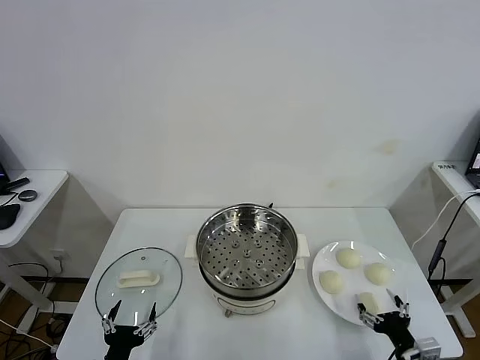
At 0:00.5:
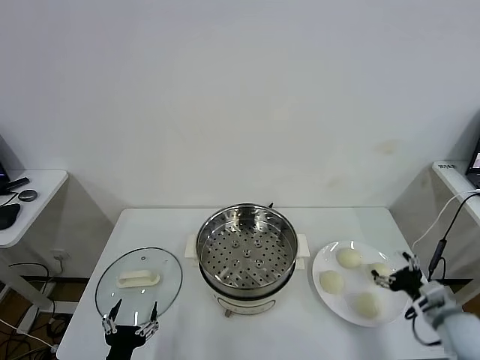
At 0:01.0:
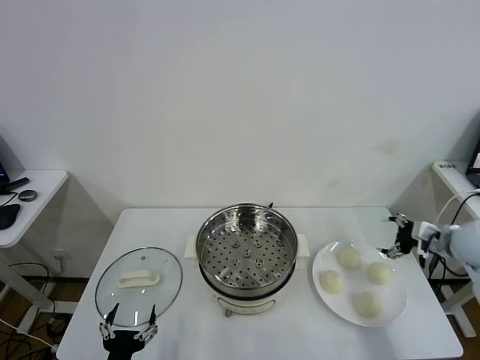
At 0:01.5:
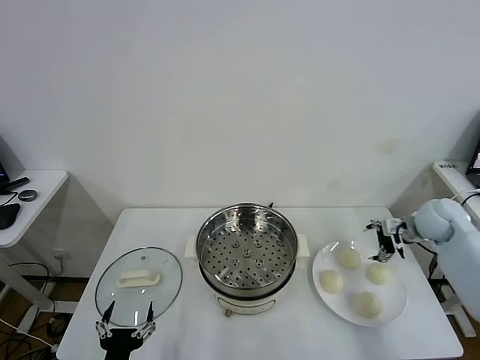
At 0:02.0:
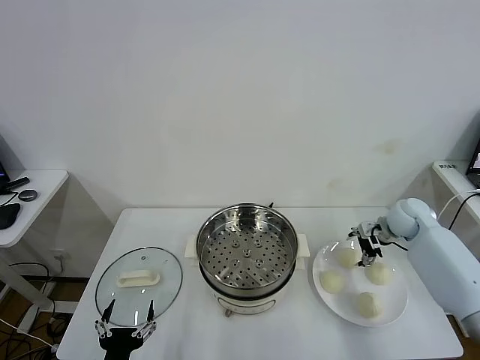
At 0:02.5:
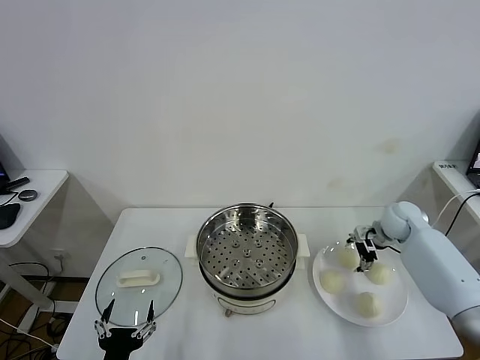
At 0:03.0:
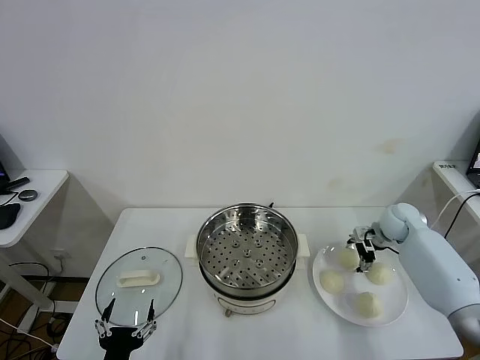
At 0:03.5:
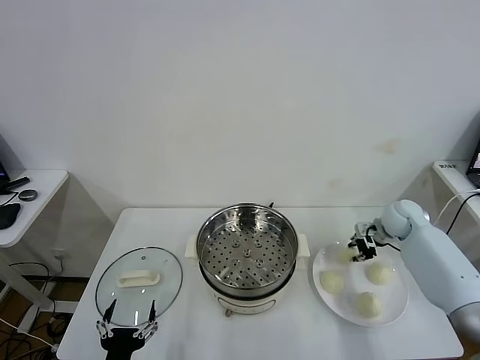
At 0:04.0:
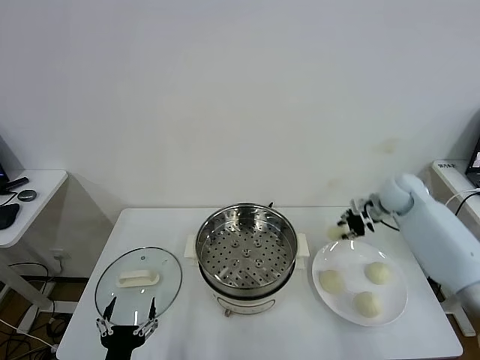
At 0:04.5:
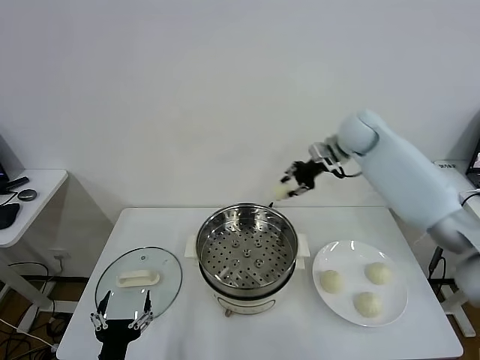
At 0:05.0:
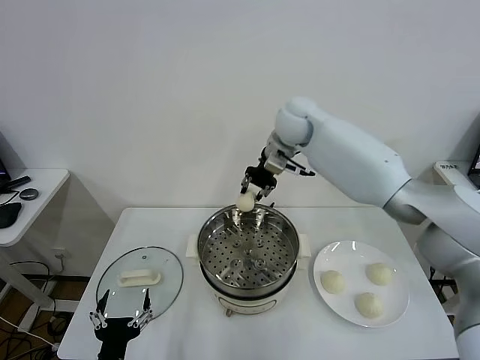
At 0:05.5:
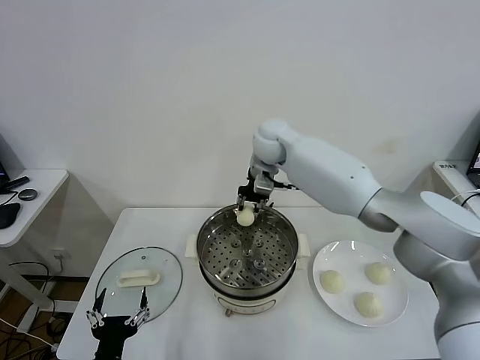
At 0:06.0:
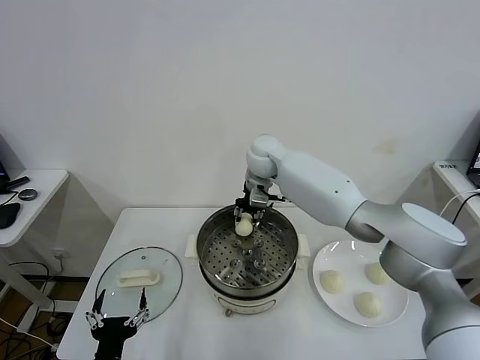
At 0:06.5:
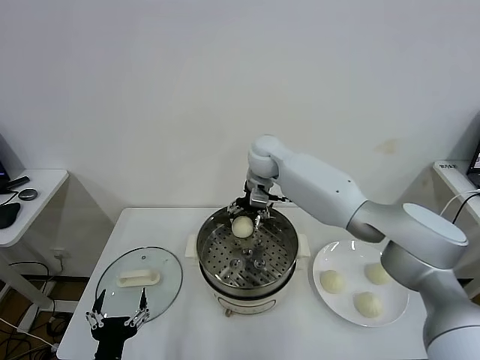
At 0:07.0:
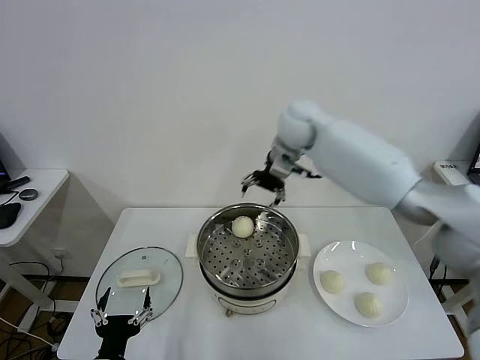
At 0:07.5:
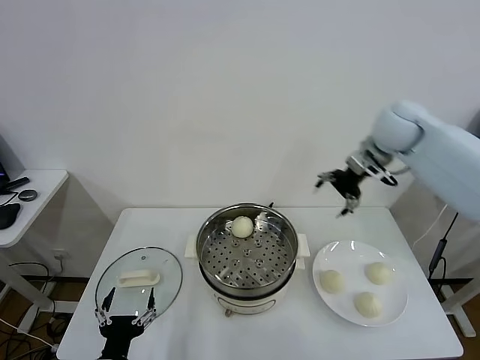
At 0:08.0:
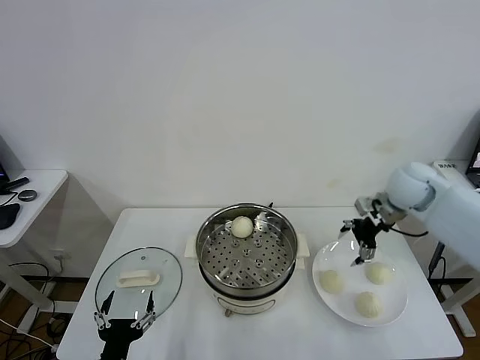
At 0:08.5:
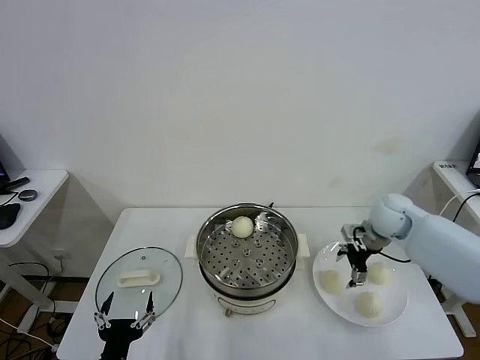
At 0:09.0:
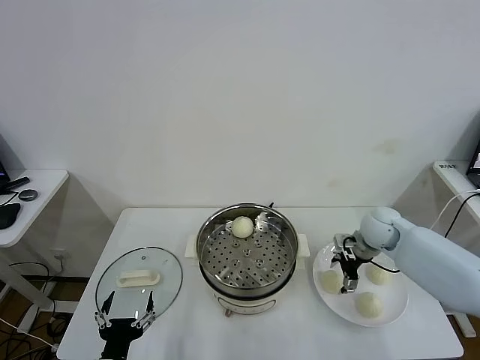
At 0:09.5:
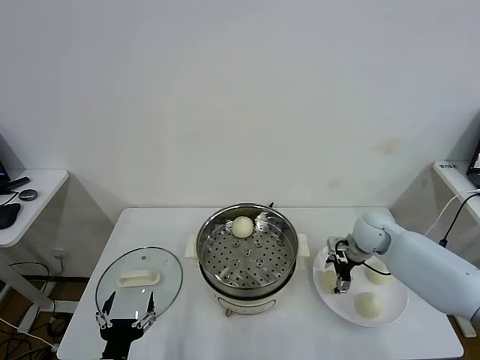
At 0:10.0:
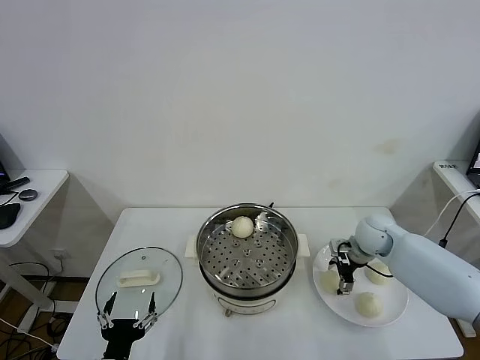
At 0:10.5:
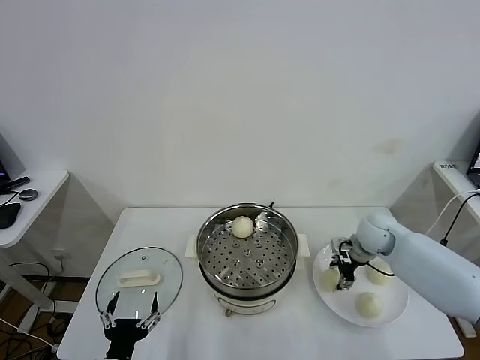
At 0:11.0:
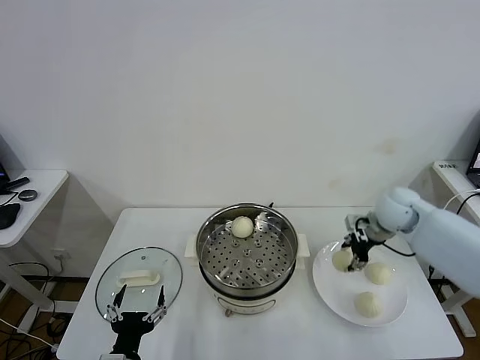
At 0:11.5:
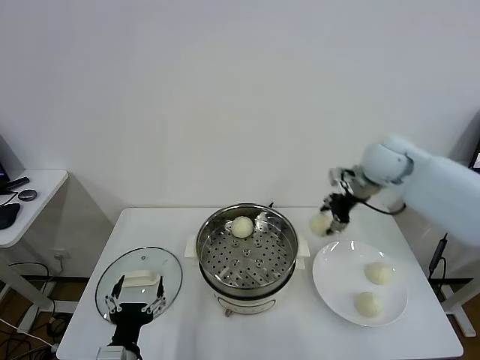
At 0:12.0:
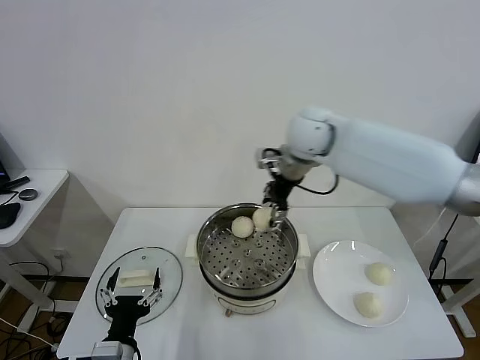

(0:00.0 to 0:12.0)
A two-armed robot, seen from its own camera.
Task of the whole recording: take steamed baozi put them in steamer.
Step, 0:00.0 - 0:03.0: Grasp the baozi in the plate with right gripper.
Step, 0:03.5 - 0:06.5: Place the baozi on the steamer with right gripper.
Step, 0:07.0 - 0:10.0: Grasp the baozi in the plate with right gripper.
0:02.0 - 0:04.0: The right gripper moves upward, approximately 5 cm, and closes up.
0:04.0 - 0:06.0: The right gripper heads to the left, covering some 35 cm.
0:06.0 - 0:08.0: The right gripper heads to the right, covering roughly 30 cm, and opens up.
0:08.0 - 0:10.0: The right gripper heads downward, covering approximately 15 cm.
0:10.0 - 0:12.0: The right gripper is displaced upward and to the left by roughly 30 cm, and closes.

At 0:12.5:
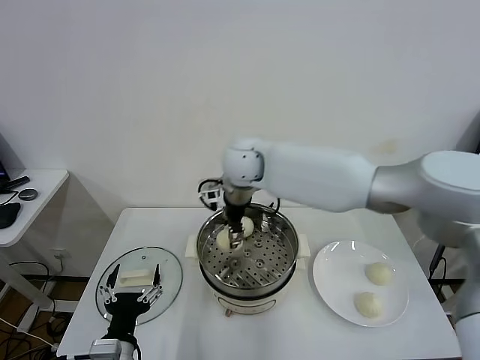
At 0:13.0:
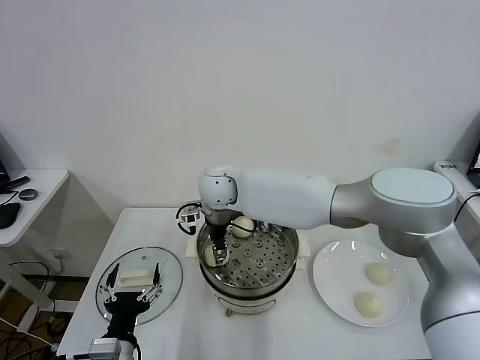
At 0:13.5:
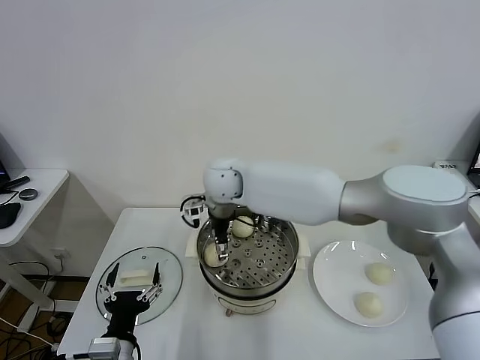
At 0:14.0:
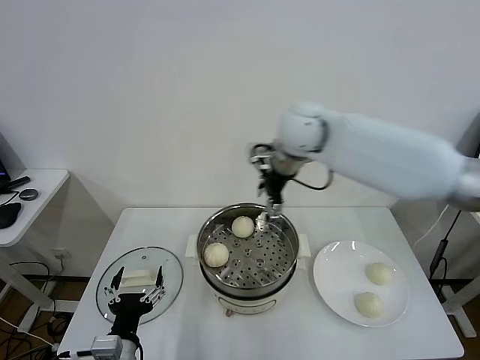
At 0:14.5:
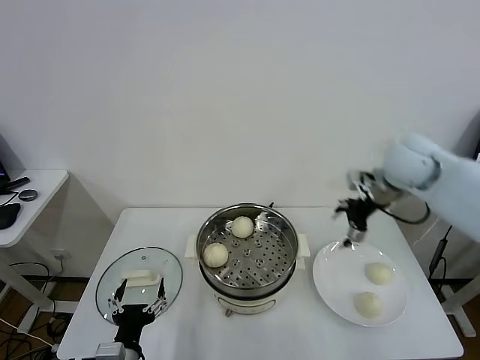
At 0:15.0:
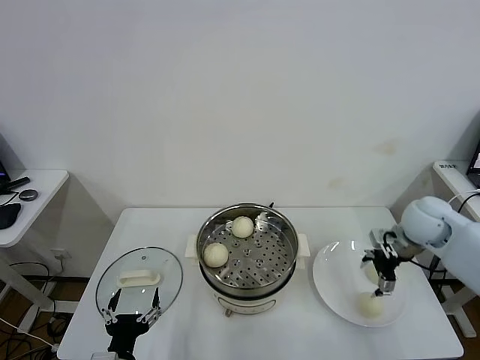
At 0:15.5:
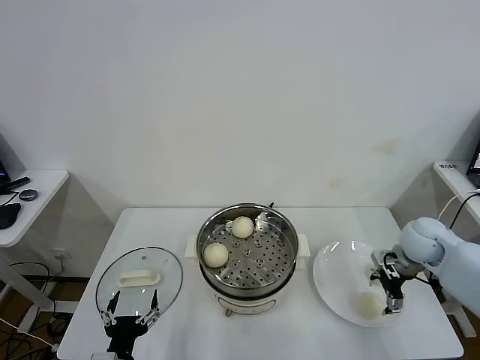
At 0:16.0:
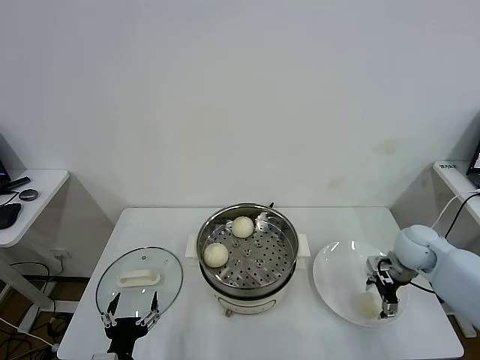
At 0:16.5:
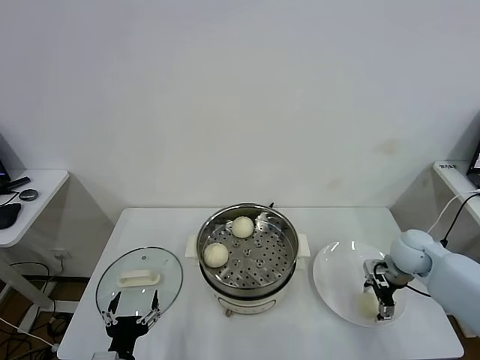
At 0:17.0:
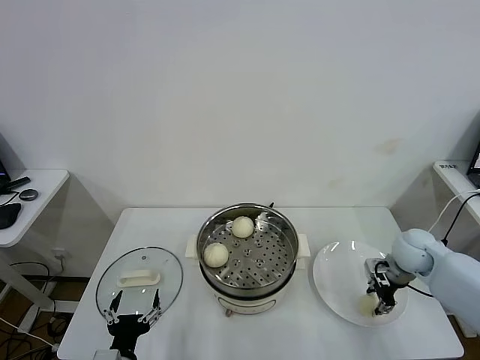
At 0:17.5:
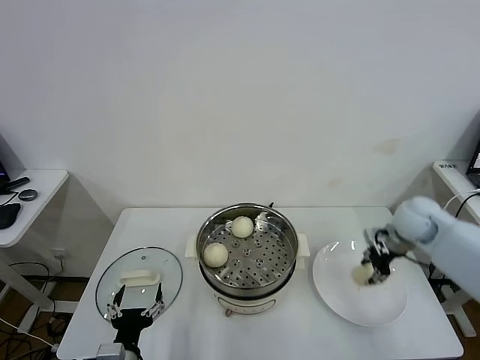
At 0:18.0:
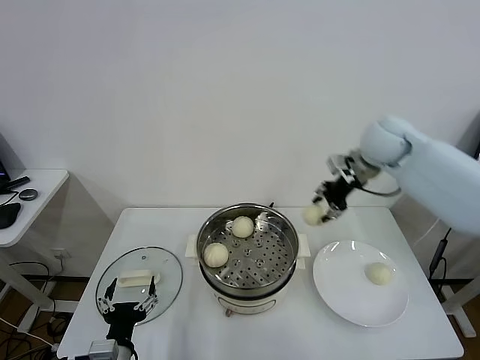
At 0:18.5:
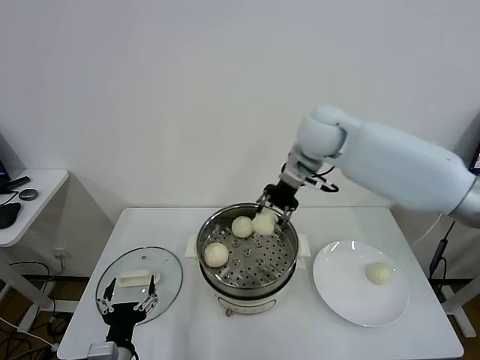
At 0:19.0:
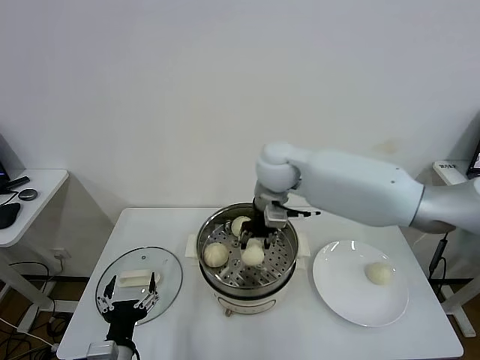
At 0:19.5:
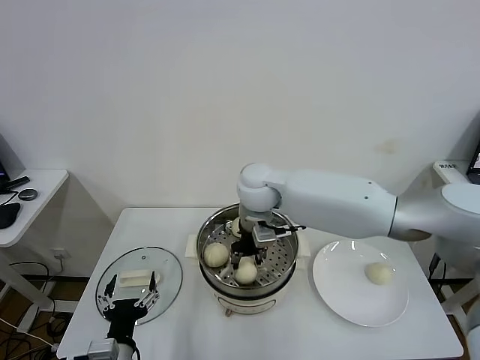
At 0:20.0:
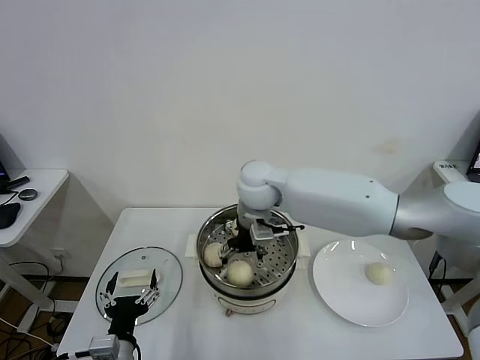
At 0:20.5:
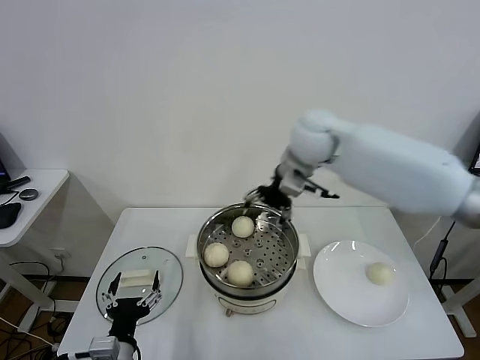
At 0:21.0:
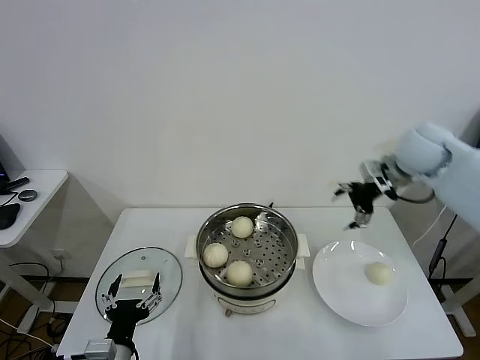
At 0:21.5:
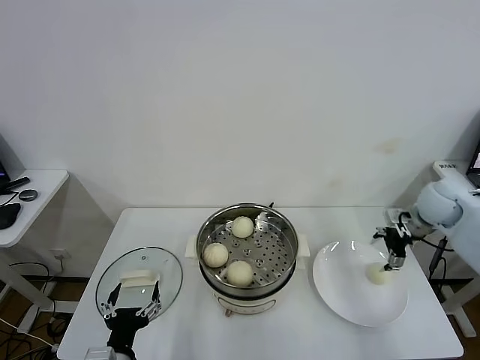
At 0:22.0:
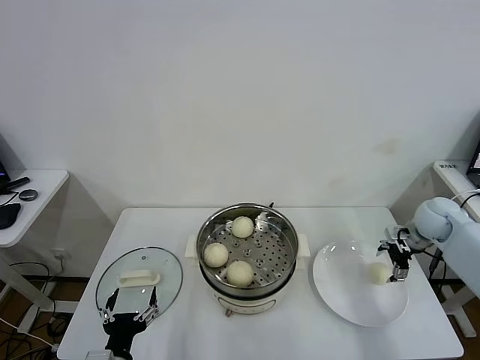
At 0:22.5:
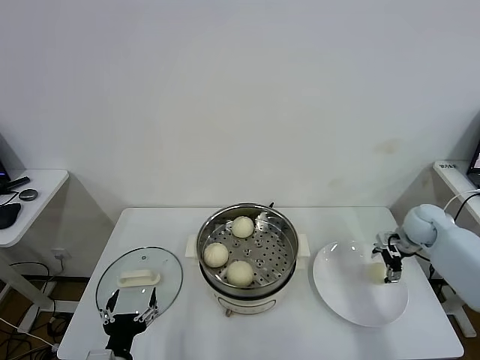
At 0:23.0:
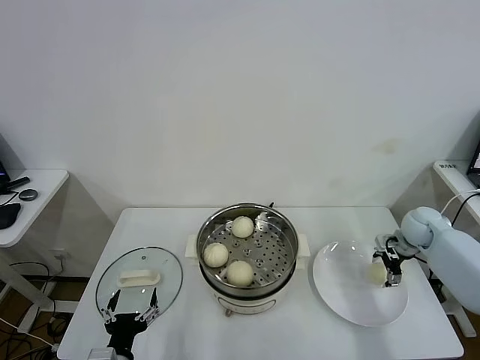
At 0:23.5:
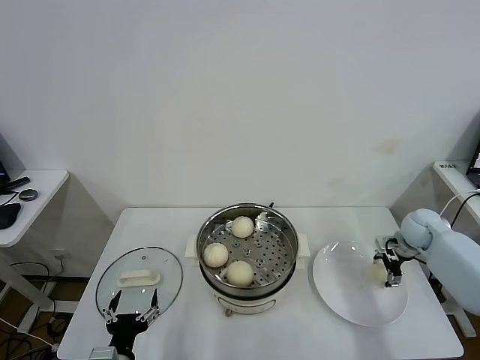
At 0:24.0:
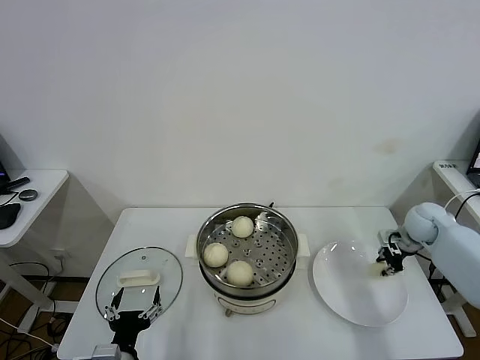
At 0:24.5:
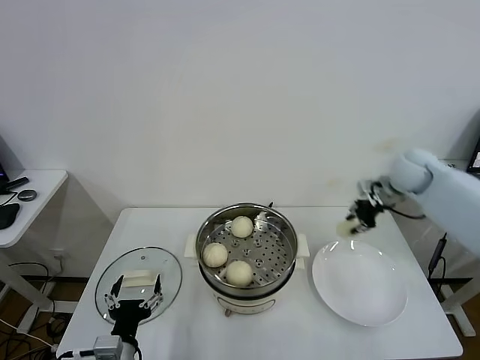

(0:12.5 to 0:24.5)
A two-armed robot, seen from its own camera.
Task of the whole recording: take steamed baozi put them in steamer.
Step, 0:14.0 - 0:17.0: Grasp the baozi in the plate with right gripper.
Step, 0:17.5 - 0:20.0: Place the baozi on the steamer with right gripper.
Step, 0:20.5 - 0:23.5: Grasp the baozi in the plate with right gripper.
0:12.5 - 0:14.5: The right gripper is displaced to the right by roughly 30 cm, and opens its fingers.
0:14.5 - 0:16.5: The right gripper is displaced downward by approximately 20 cm.
0:16.5 - 0:18.5: The right gripper travels upward, to the left and forward by approximately 35 cm, and closes up.
0:18.5 - 0:20.5: The right gripper moves about 10 cm to the left and comes back, and opens its fingers.
0:20.5 - 0:22.5: The right gripper moves to the right and downward, roughly 40 cm.
0:22.5 - 0:24.5: The right gripper is displaced upward and to the left by roughly 15 cm, and closes.

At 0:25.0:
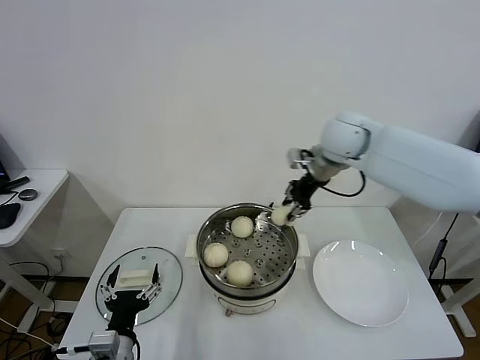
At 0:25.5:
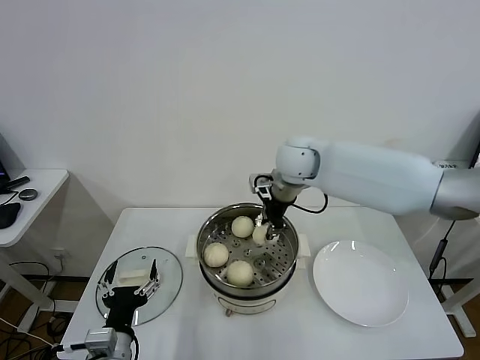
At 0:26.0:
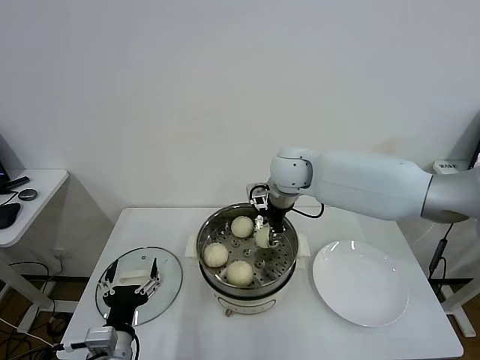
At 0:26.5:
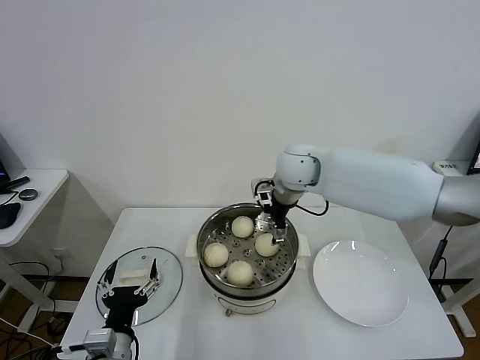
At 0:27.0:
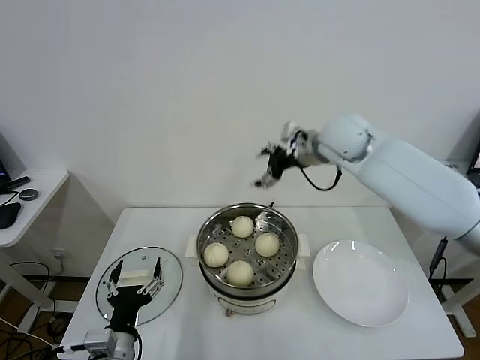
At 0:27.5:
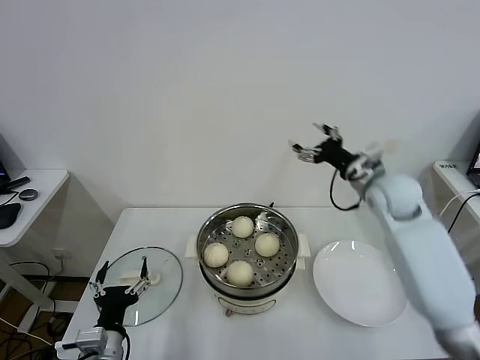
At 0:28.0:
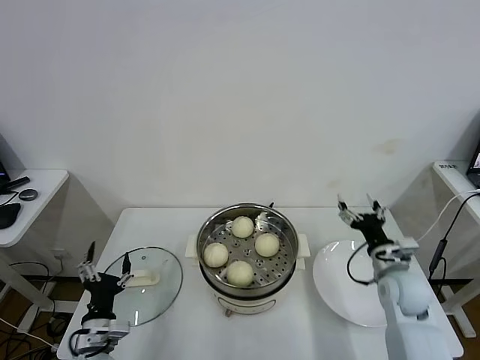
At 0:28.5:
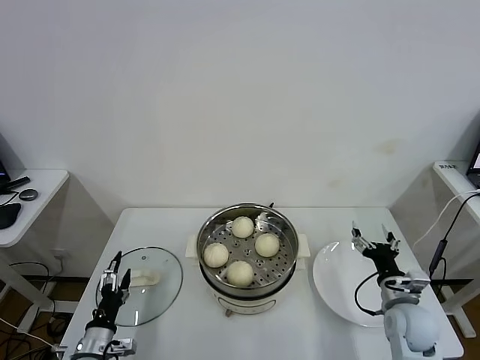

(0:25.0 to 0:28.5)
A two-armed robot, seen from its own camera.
Task of the whole recording: take steamed baozi put them in steamer.
Step, 0:25.0 - 0:26.5: Place the baozi on the steamer with right gripper.
0:25.0 - 0:27.0: The right gripper travels to the left and back again, some 10 cm each way, and opens.
0:27.0 - 0:28.5: The right gripper travels downward, backward and to the right by about 40 cm. The left gripper is displaced downward and to the left by roughly 15 cm.
